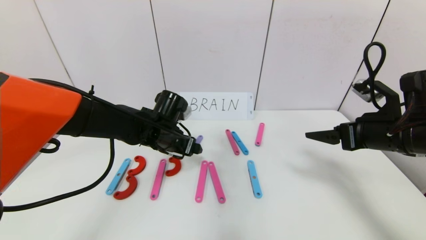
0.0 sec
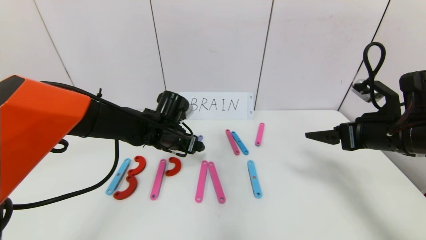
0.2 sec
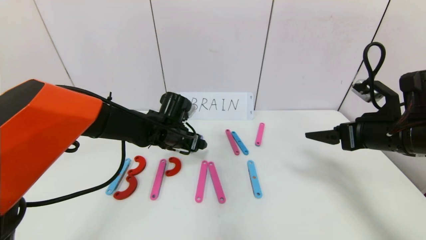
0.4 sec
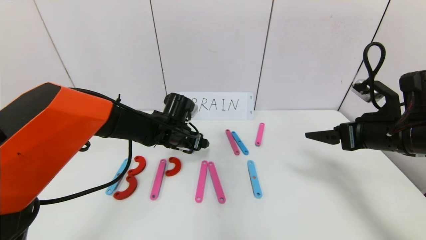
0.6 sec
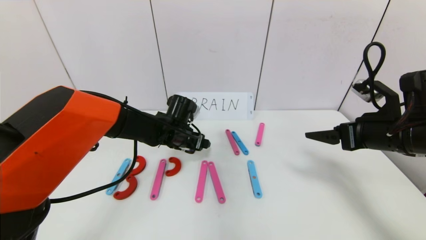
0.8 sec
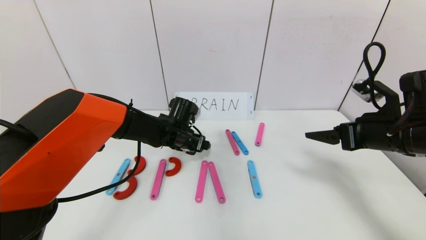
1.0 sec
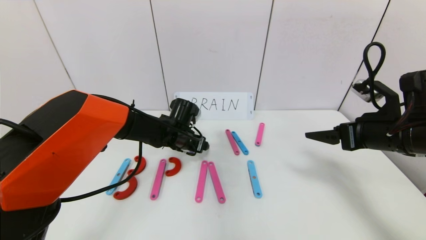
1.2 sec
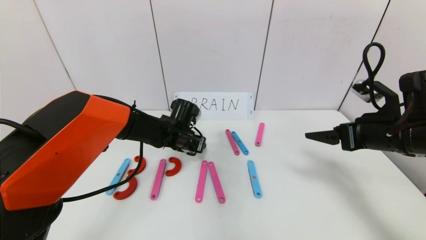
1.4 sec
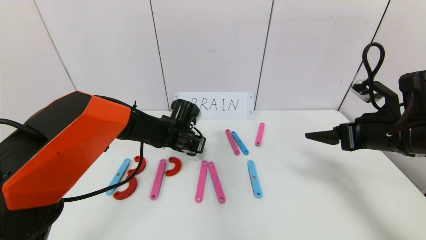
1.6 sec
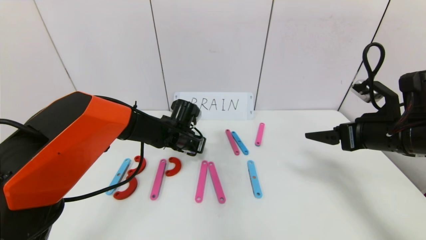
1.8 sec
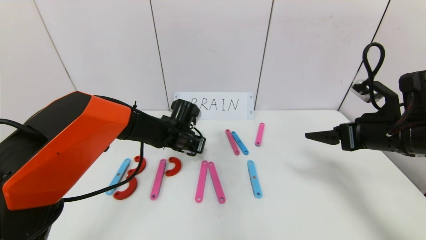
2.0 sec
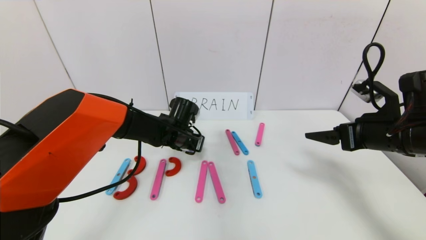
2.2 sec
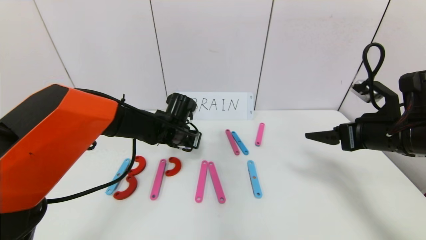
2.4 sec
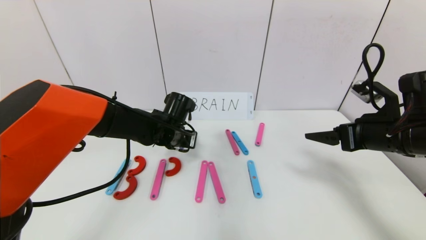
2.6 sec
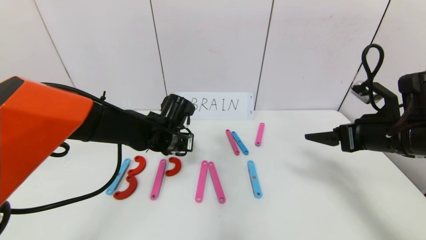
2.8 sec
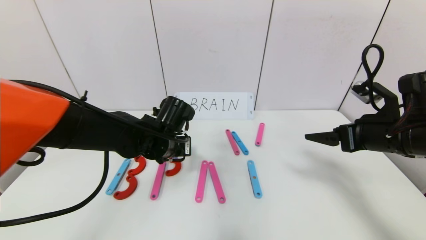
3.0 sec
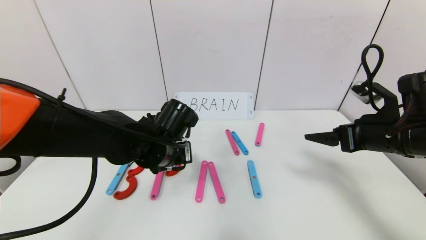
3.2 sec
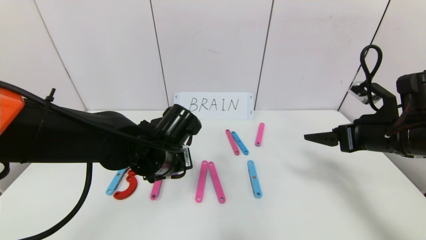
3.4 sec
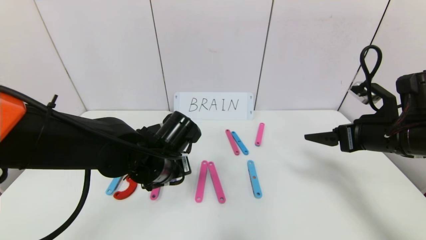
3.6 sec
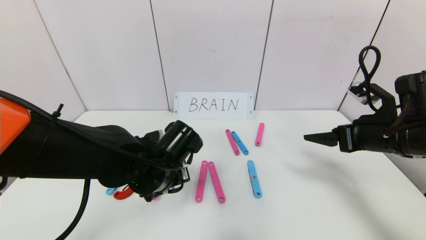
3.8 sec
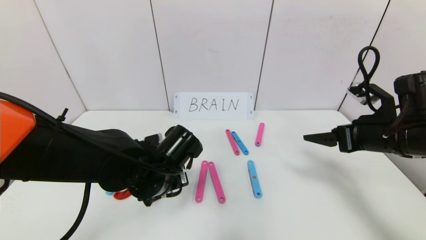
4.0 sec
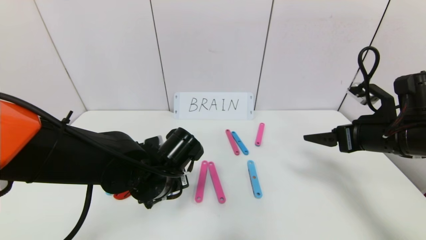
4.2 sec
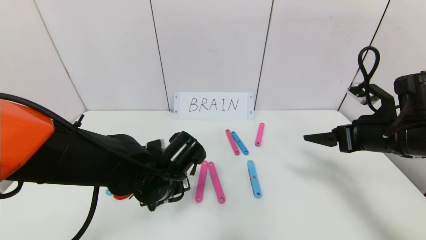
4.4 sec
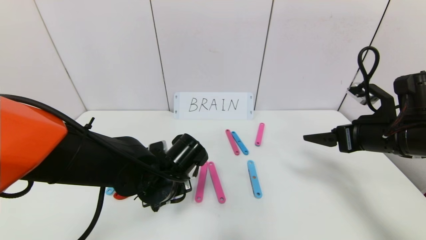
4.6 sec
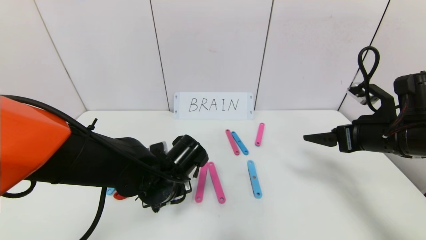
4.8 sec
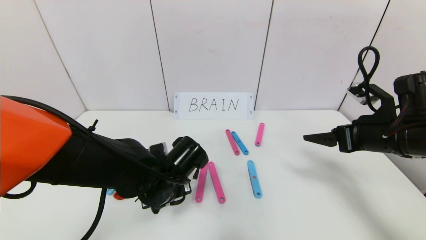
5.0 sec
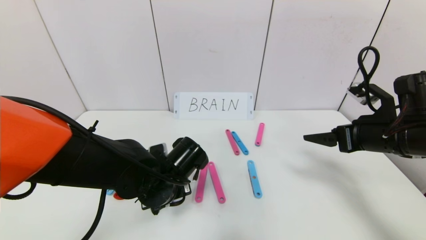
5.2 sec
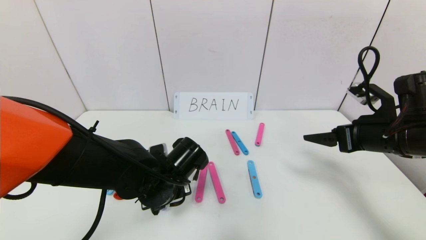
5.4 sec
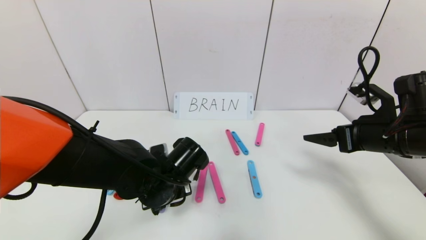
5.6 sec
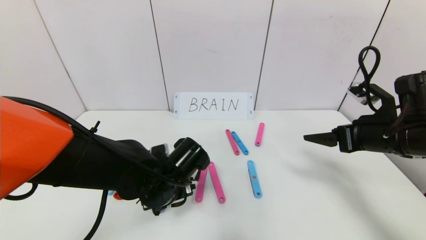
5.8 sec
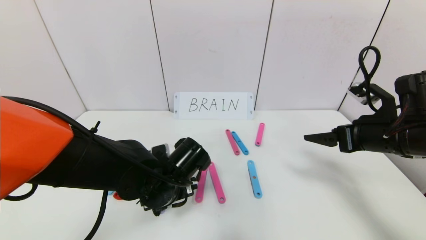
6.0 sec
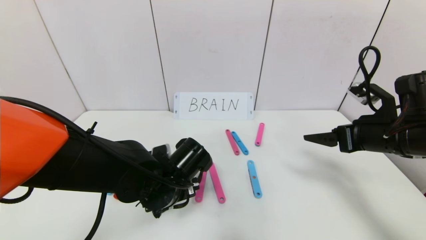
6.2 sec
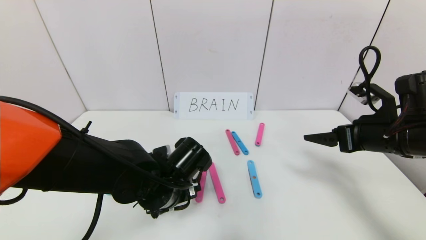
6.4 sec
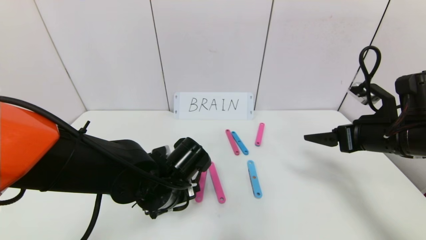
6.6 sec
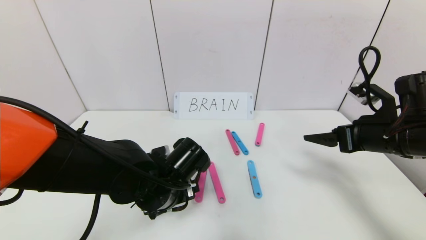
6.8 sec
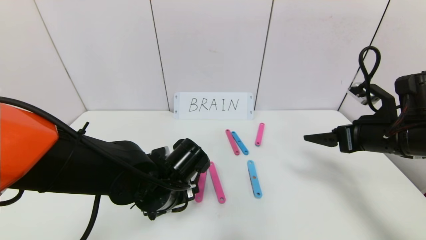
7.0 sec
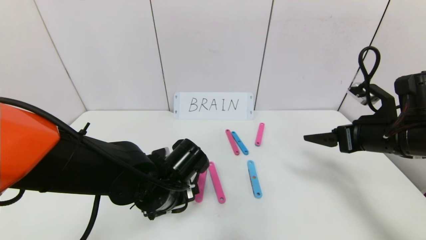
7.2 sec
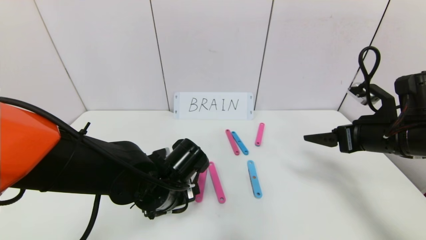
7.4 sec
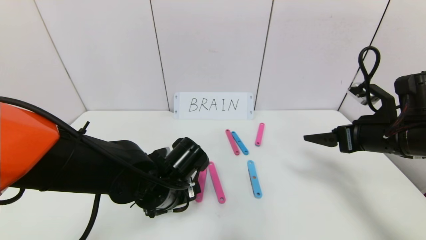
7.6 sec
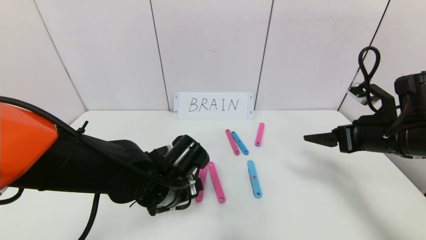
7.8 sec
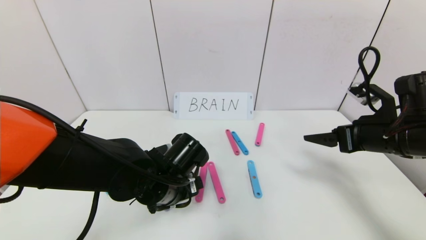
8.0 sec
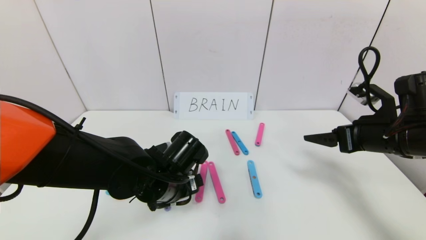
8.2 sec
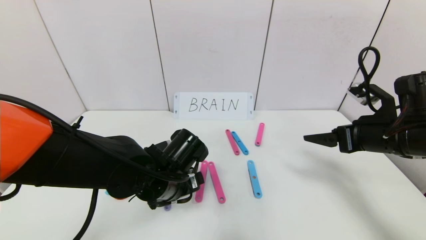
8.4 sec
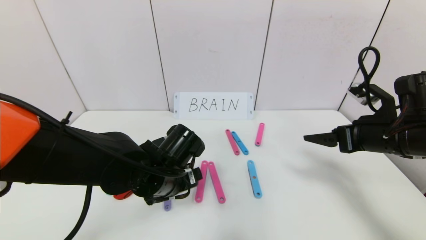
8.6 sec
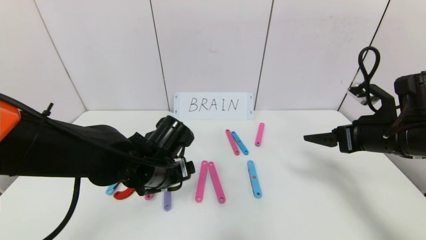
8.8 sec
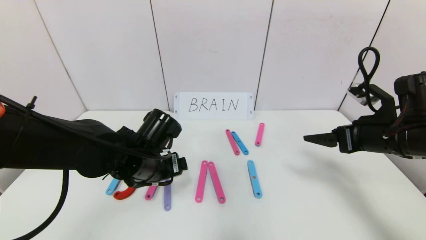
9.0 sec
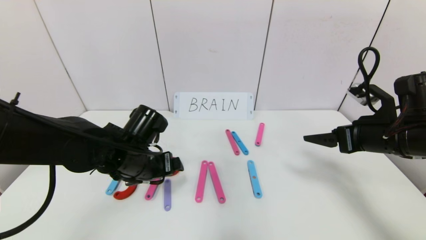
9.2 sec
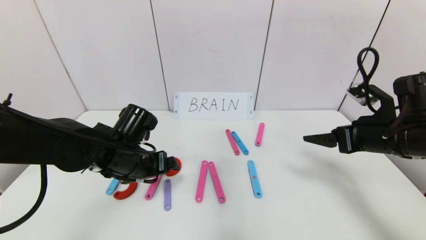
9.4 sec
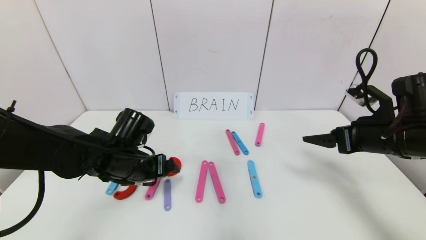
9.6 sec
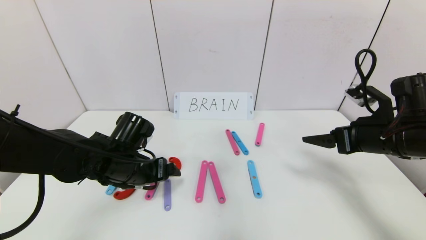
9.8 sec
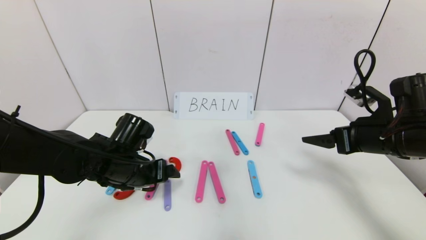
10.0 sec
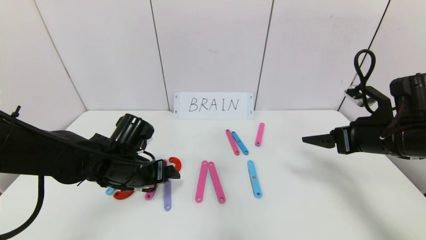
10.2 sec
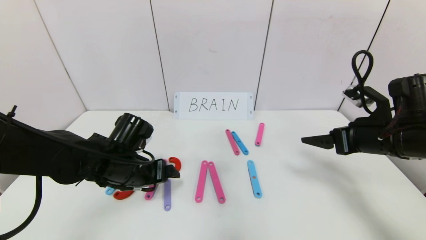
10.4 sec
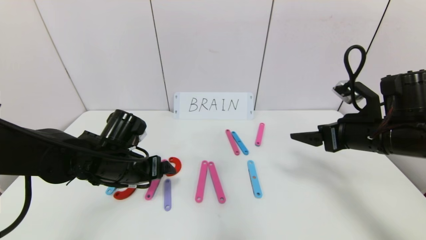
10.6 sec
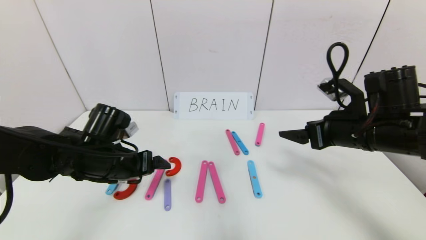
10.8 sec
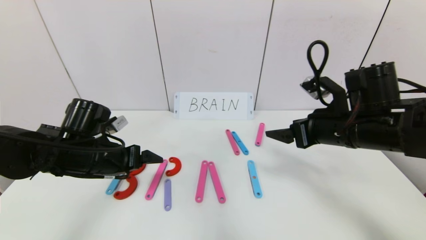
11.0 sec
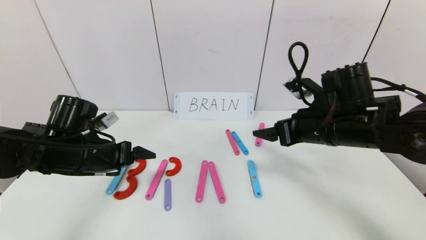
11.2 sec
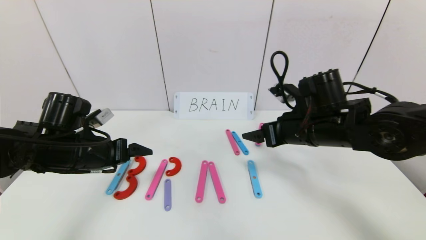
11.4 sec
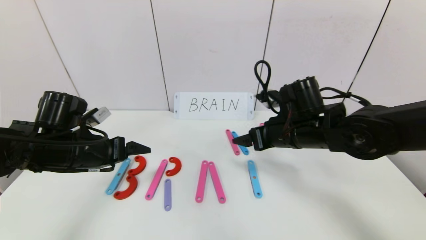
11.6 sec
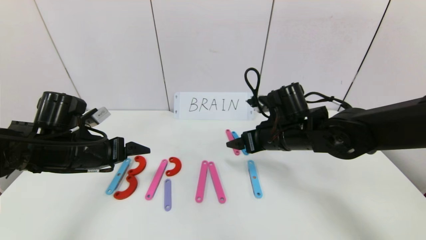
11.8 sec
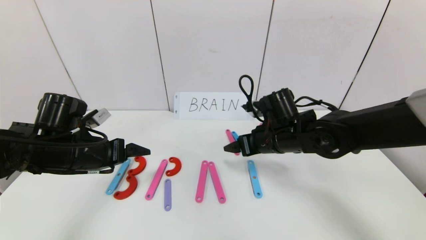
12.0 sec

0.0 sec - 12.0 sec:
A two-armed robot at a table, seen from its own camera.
Task of the whole recording: rearrange the word baai as brain.
Step, 0.0 sec - 10.8 sec: Place the character R between first character B and third character A.
0.0 sec - 1.6 sec: The left gripper goes some 5 cm forward, and closes its fingers.
1.6 sec - 3.0 sec: The left gripper shifts some 10 cm backward.
3.0 sec - 4.4 sec: The left gripper goes some 5 cm backward.
4.4 sec - 6.0 sec: The left gripper opens.
6.0 sec - 7.6 sec: The grippers move only a little.
7.6 sec - 9.0 sec: The left gripper moves roughly 5 cm.
9.0 sec - 10.4 sec: The grippers move only a little.
10.4 sec - 12.0 sec: The left gripper shifts roughly 10 cm to the left; the right gripper shifts approximately 20 cm to the left and forward.

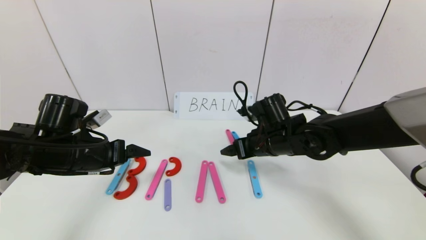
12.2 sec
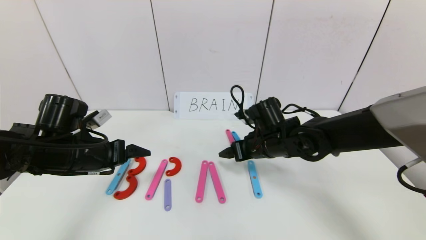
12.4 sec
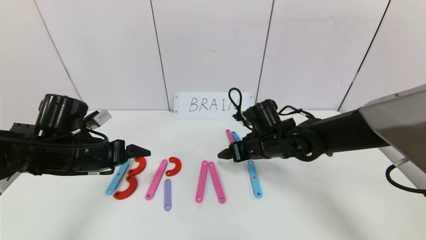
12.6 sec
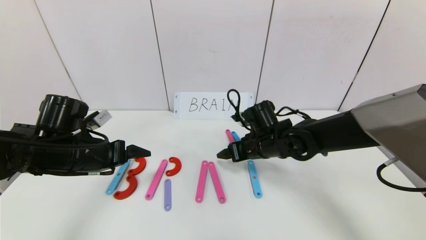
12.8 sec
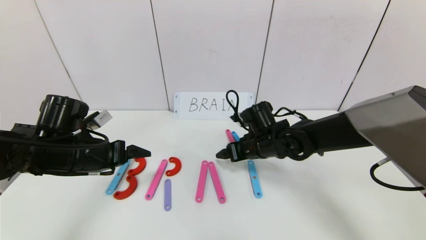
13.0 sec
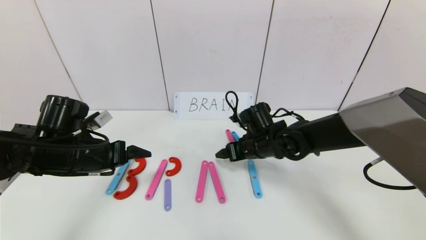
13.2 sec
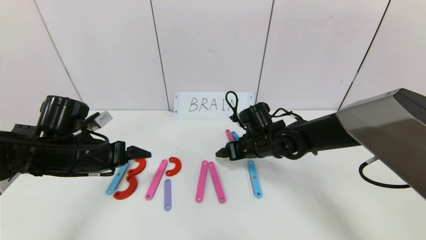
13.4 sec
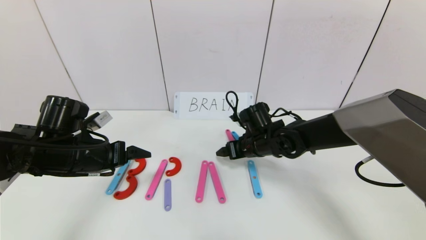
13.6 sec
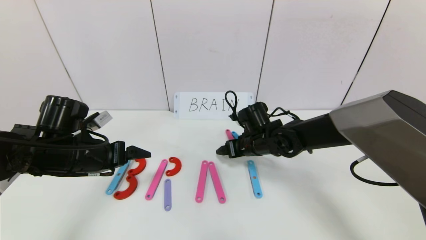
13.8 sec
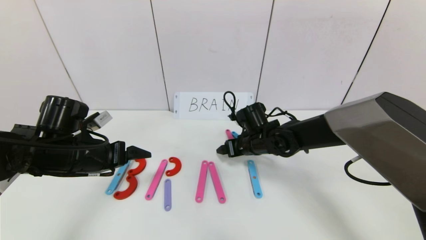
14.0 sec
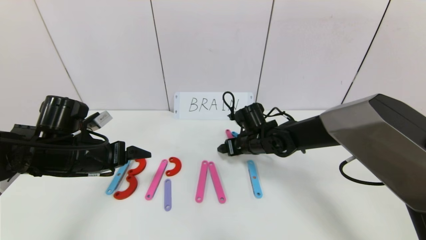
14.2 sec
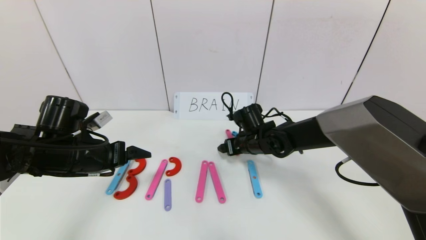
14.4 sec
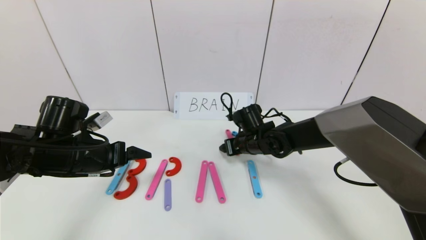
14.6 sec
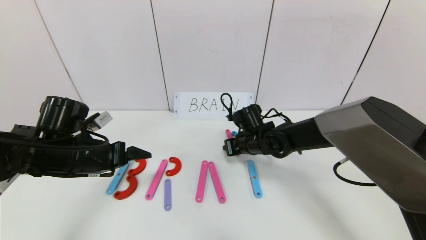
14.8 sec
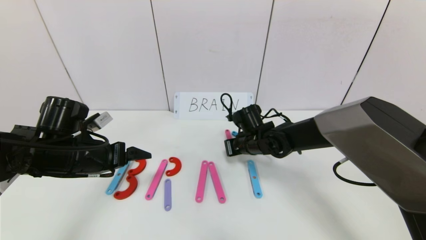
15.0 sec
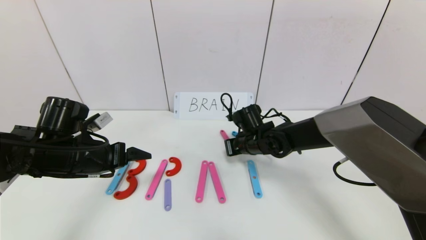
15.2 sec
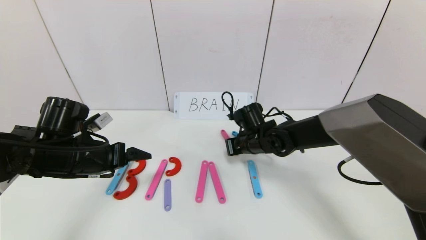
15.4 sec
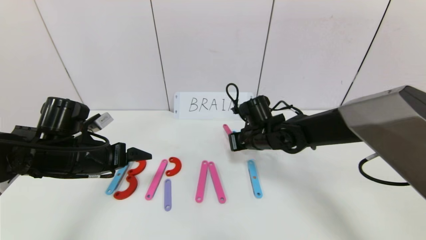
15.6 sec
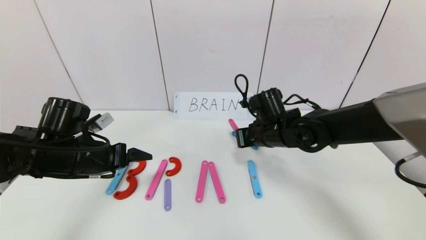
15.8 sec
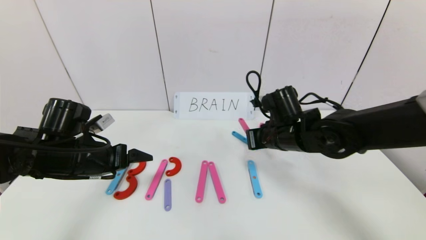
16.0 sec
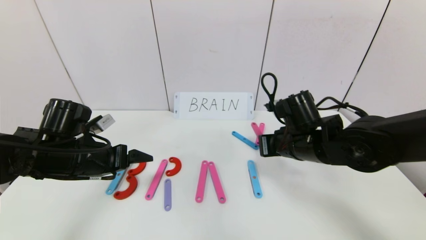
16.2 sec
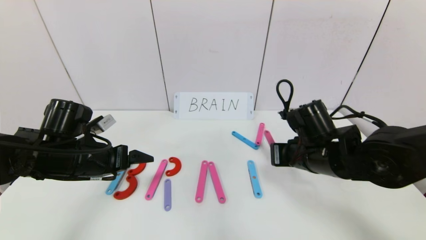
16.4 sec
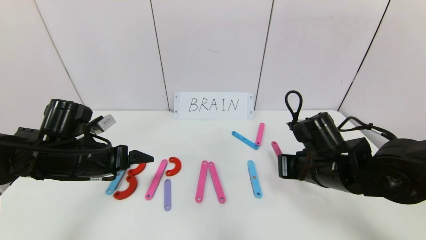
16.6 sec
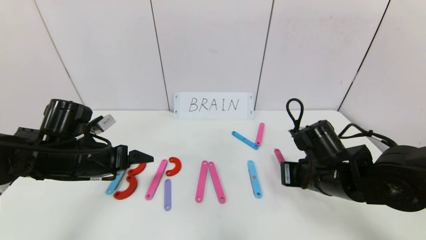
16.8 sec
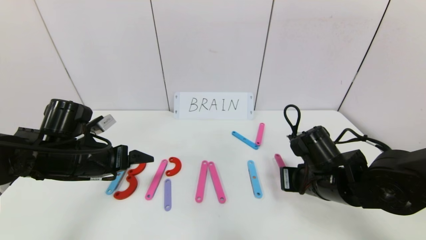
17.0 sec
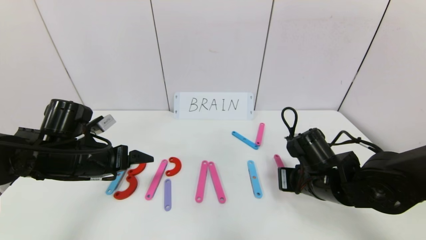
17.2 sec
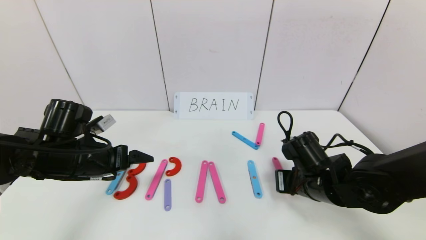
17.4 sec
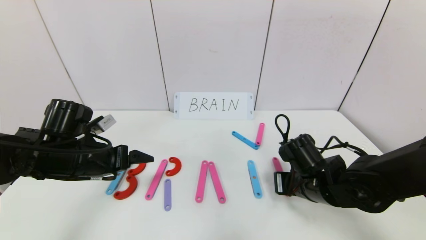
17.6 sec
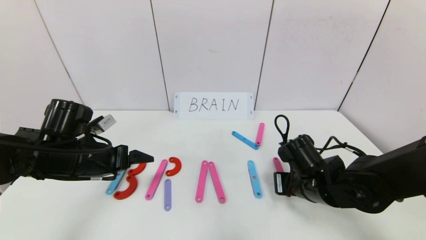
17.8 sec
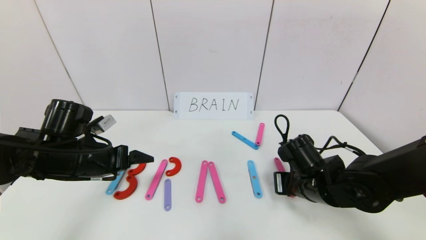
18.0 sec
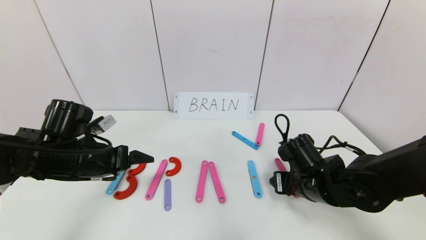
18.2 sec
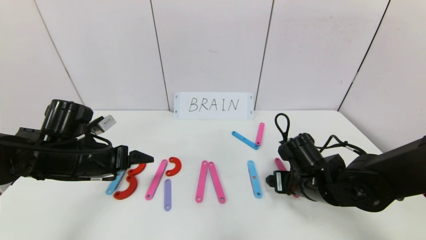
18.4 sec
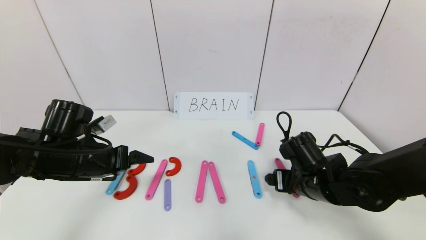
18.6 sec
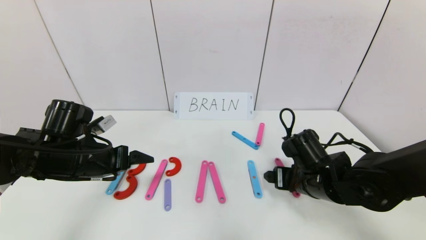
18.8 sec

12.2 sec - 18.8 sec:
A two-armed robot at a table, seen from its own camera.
Task of the whole recording: rearrange the word baai as brain.
12.2 sec - 13.8 sec: The right gripper moves roughly 5 cm.
13.8 sec - 15.4 sec: The right gripper closes its fingers.
15.4 sec - 17.2 sec: The right gripper travels backward and to the right by roughly 15 cm.
17.2 sec - 18.8 sec: The right gripper opens.
